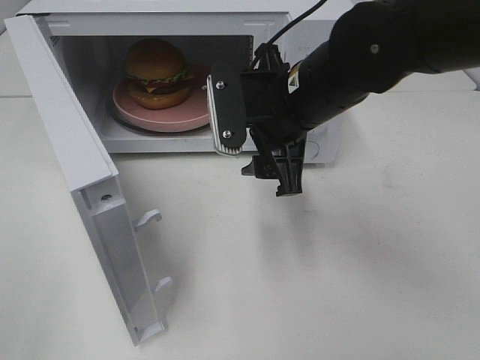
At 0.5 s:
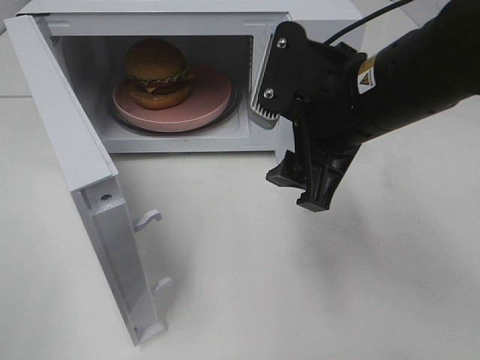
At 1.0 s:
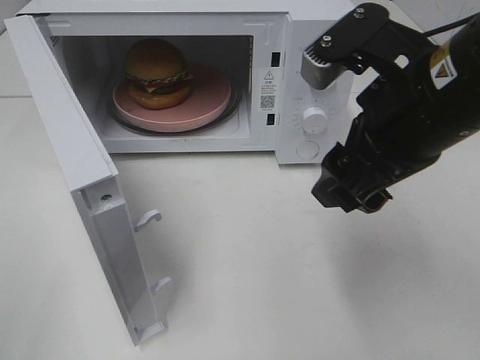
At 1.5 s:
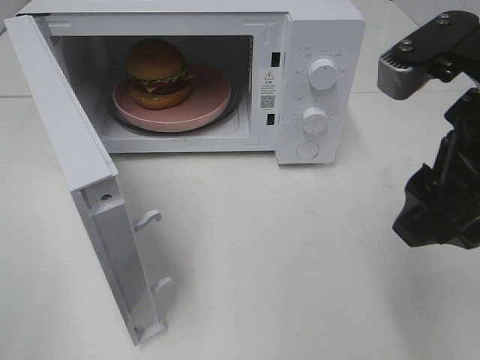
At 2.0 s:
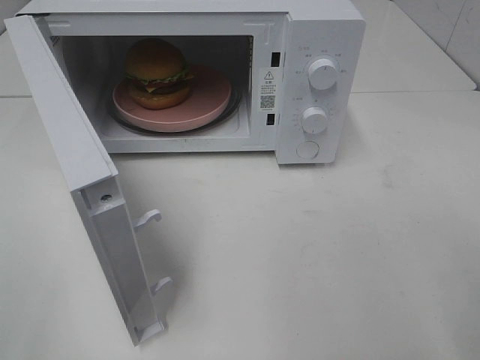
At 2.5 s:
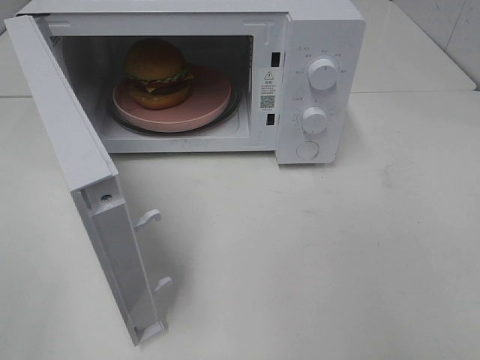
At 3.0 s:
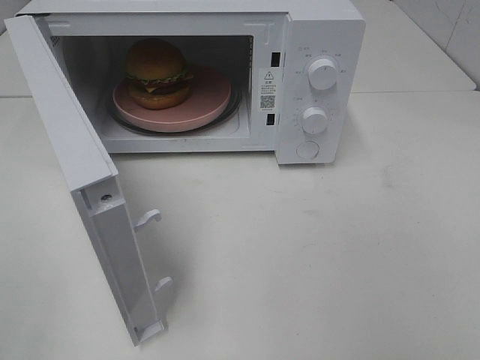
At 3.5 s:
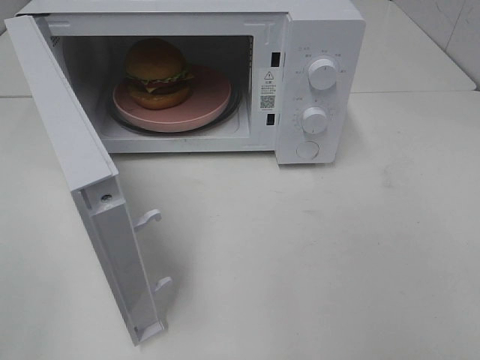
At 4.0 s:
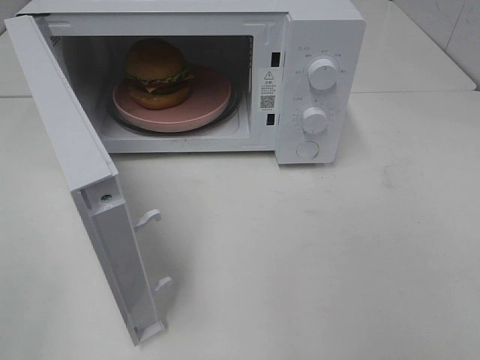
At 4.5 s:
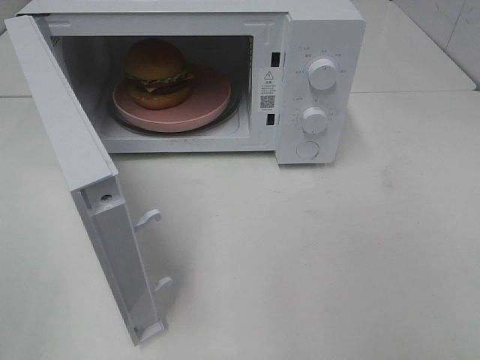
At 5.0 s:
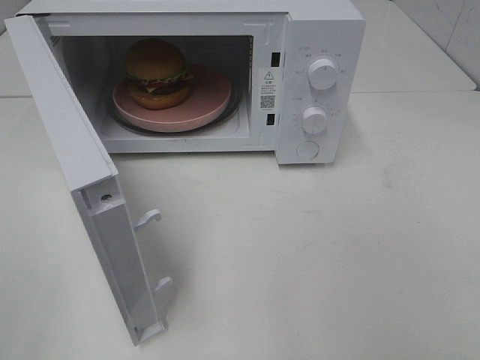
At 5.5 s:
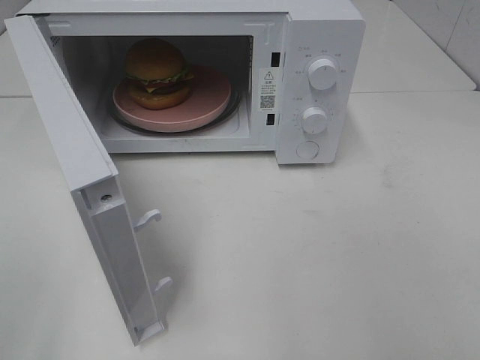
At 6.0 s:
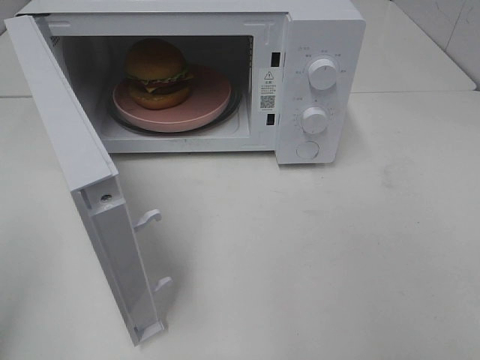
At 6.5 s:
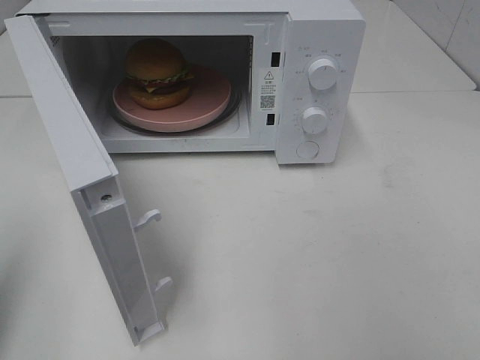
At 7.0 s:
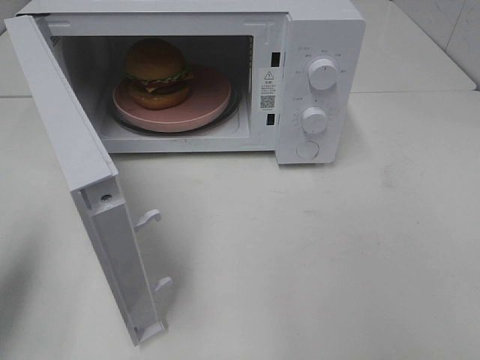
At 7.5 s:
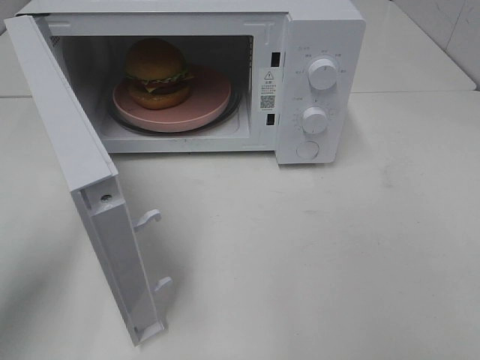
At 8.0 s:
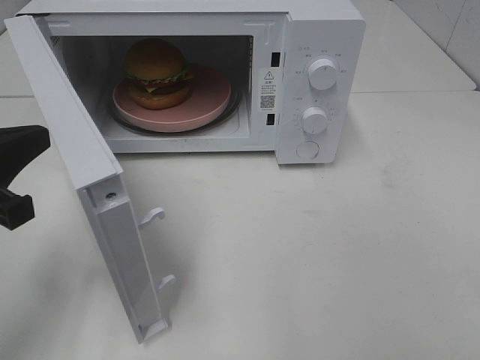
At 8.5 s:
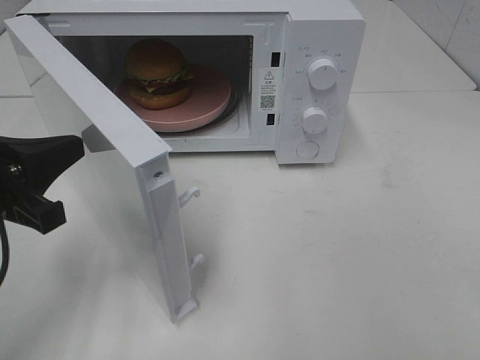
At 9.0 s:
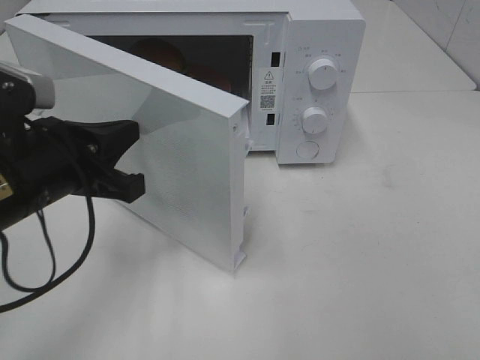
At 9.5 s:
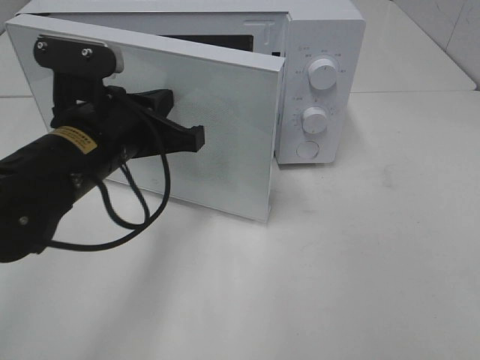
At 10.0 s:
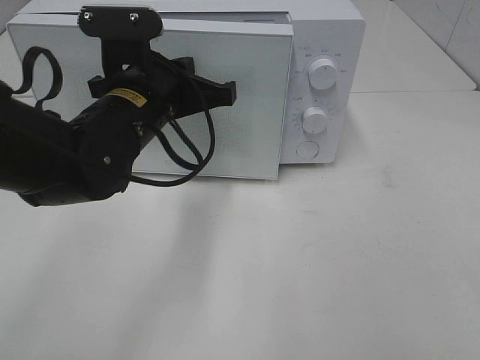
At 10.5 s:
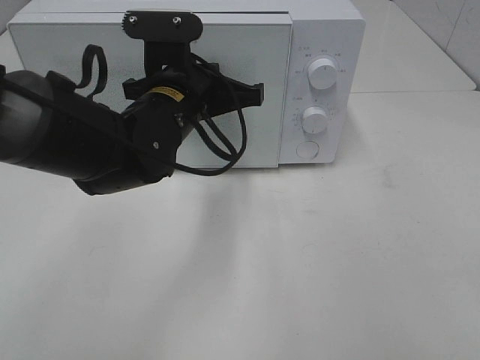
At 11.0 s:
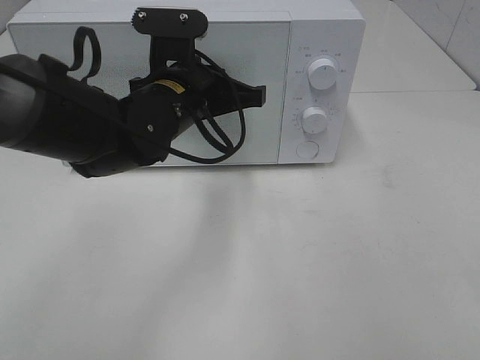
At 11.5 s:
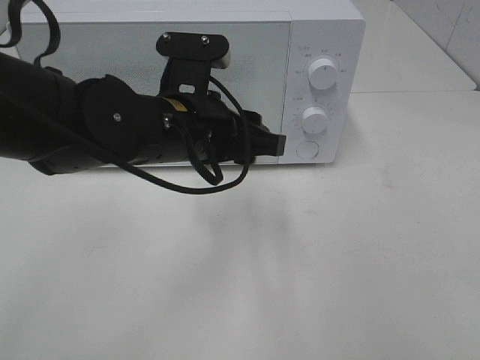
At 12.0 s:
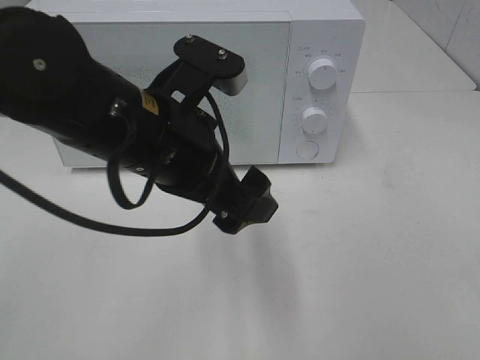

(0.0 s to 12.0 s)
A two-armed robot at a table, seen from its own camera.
Task of the whole recording: Heat the burger.
Step, 0.0 s - 11.0 s: Left hand: close the microwave door.
0.0 s - 2.0 s: The right gripper goes some 25 cm backward and to the right.
6.0 s - 8.0 s: The left gripper travels forward, downward and to the right by about 15 cm.
8.0 s - 10.0 s: The left gripper travels to the right and forward by some 20 cm.
10.0 s - 12.0 s: The left gripper travels backward by roughly 10 cm, and opens up.

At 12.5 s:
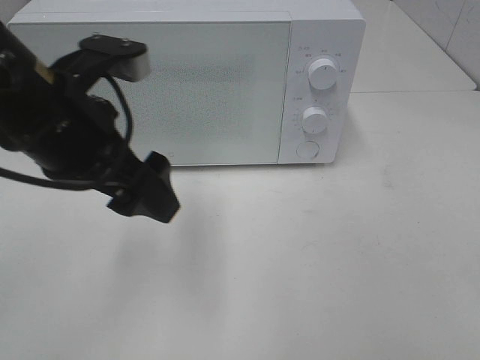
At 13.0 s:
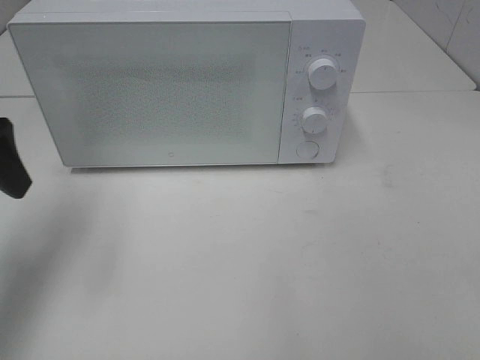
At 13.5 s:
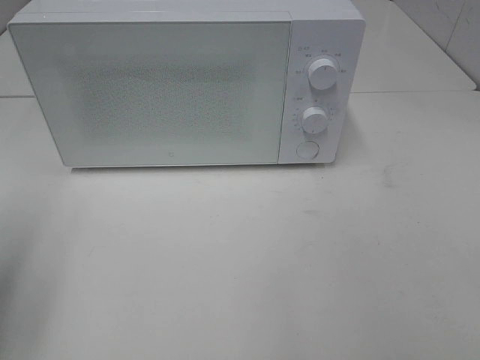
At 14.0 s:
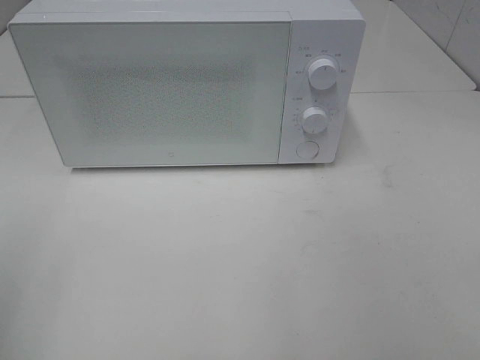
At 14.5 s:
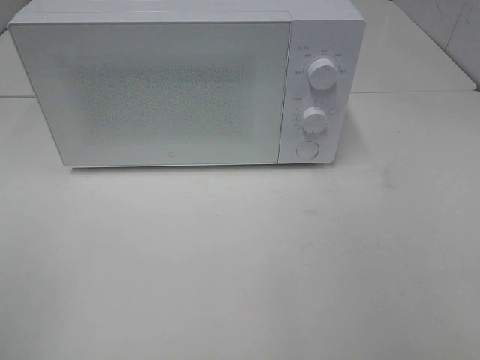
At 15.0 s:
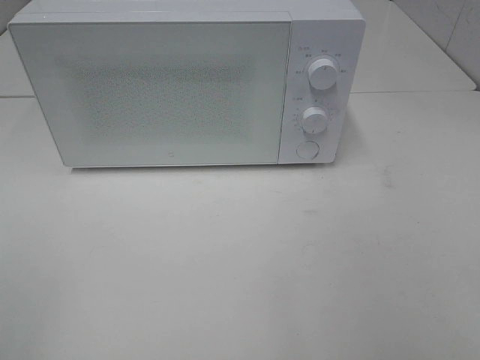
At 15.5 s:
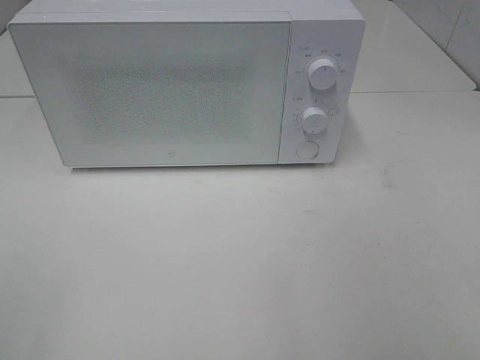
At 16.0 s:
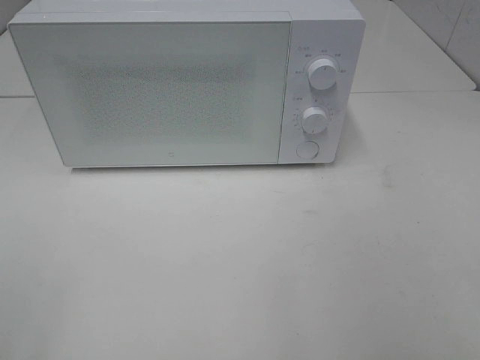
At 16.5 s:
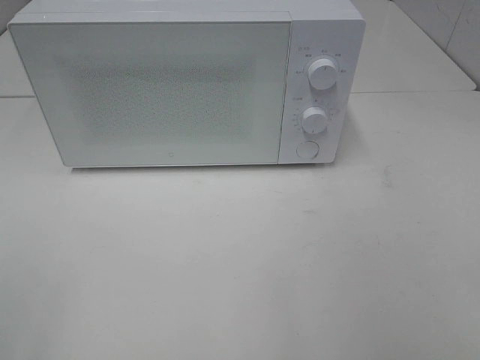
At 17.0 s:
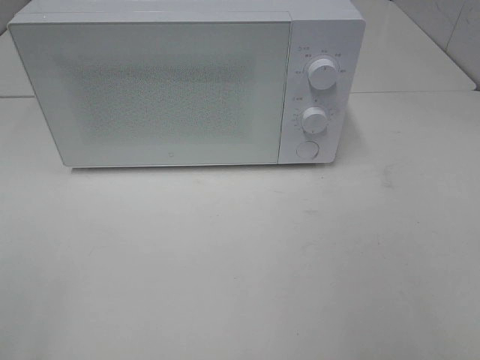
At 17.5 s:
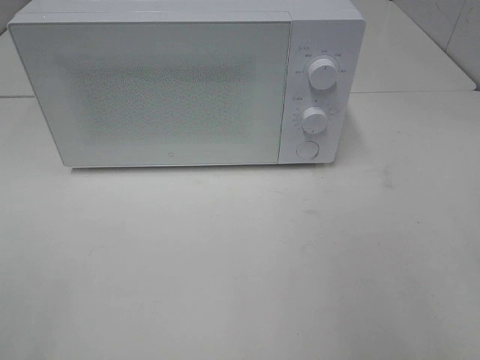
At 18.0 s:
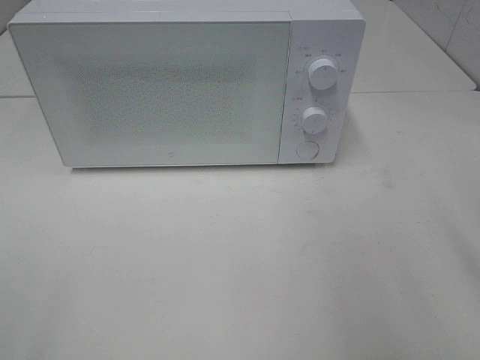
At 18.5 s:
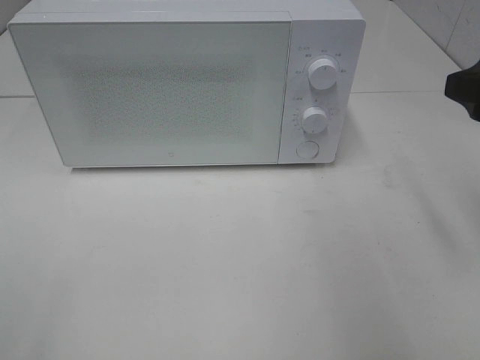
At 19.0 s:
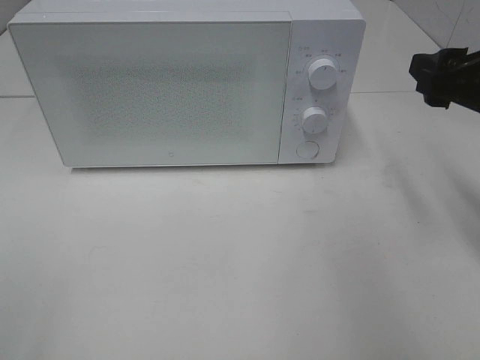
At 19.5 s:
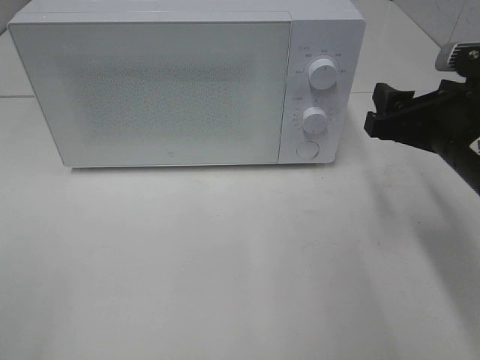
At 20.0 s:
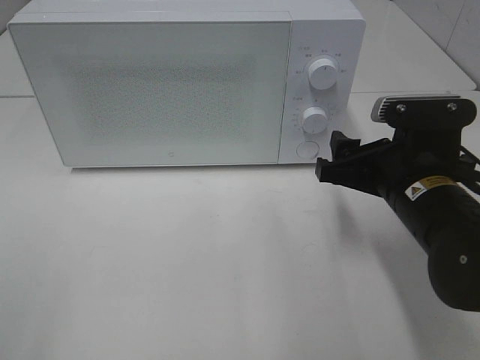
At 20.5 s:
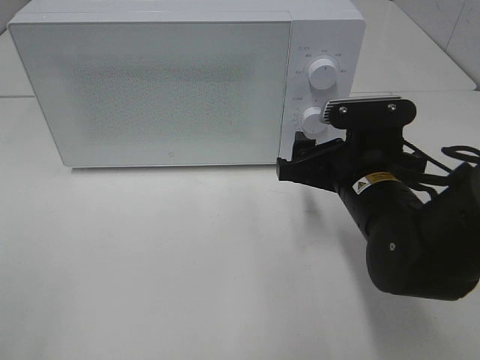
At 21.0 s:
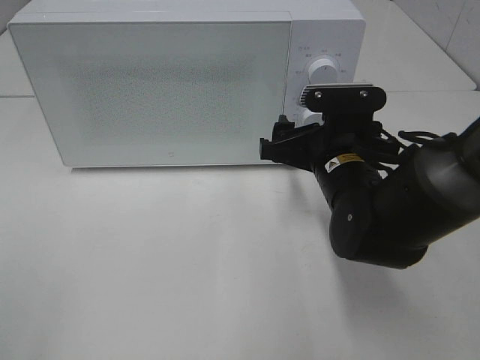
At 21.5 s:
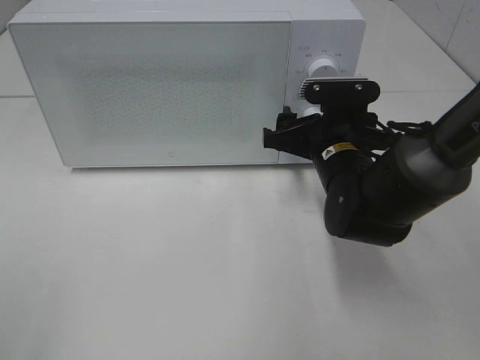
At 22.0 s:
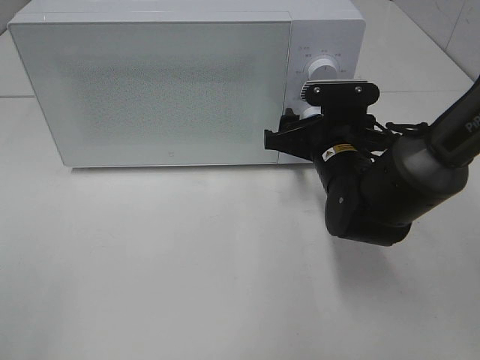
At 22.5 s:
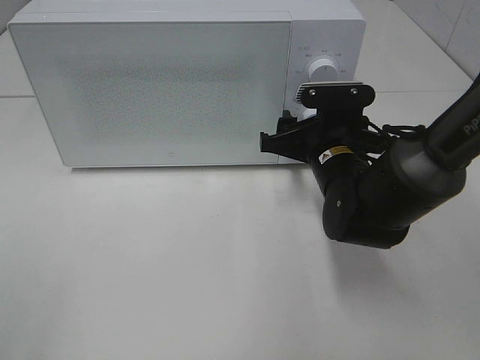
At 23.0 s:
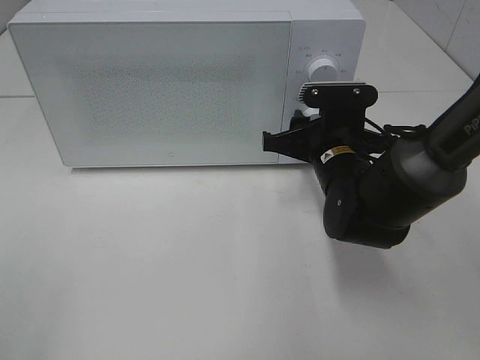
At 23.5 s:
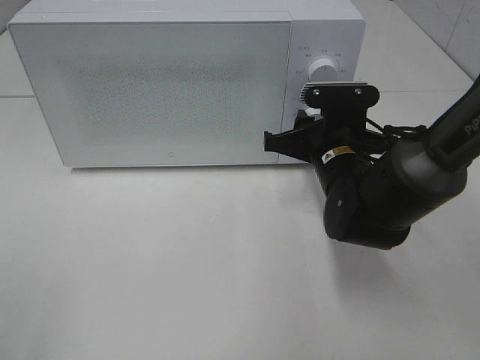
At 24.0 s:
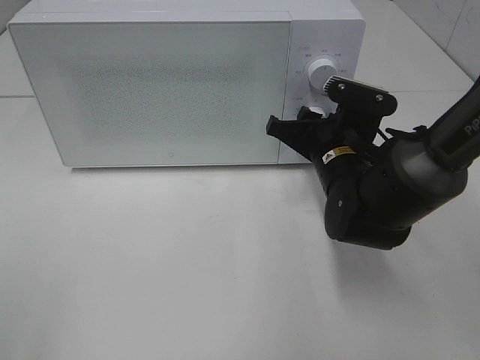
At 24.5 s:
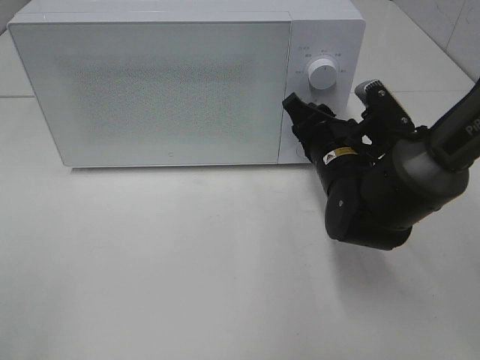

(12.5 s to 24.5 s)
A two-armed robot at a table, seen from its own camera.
Task of the whole recording: Heat the burger.
12.5 s - 14.5 s: The left gripper travels backward and to the left by some 30 cm.
16.5 s - 18.5 s: The right gripper shifts some 20 cm forward.
18.5 s - 20.5 s: The right gripper goes some 20 cm downward and to the left.
20.5 s - 22.5 s: The right gripper moves forward, approximately 5 cm.

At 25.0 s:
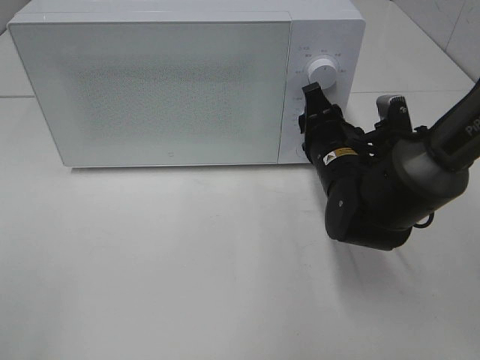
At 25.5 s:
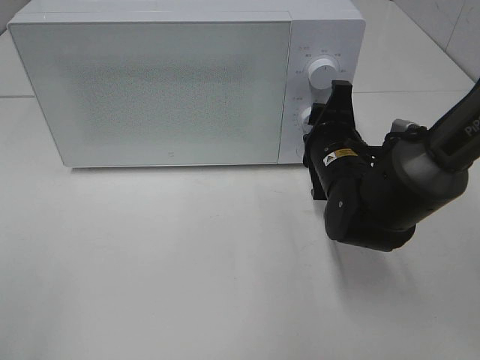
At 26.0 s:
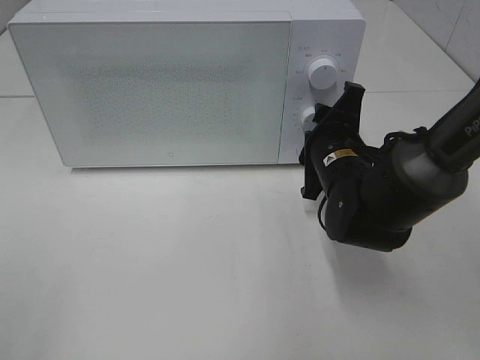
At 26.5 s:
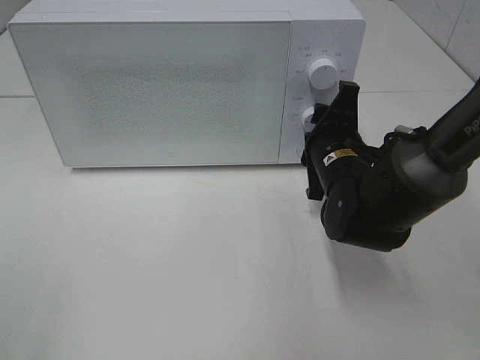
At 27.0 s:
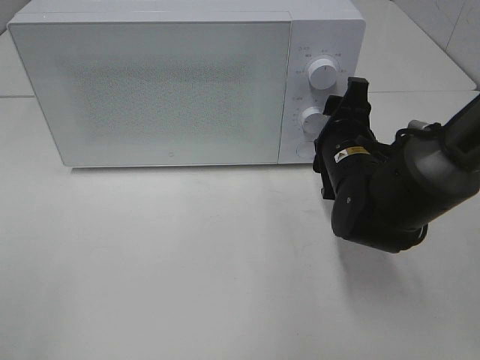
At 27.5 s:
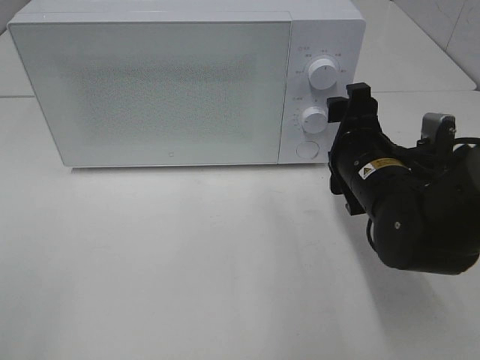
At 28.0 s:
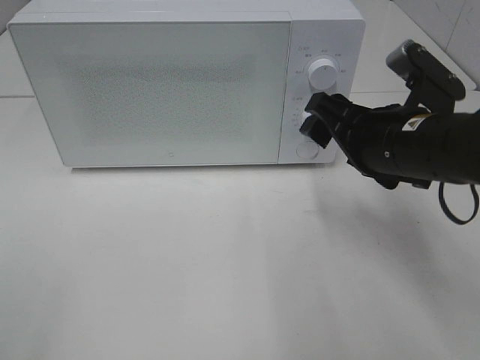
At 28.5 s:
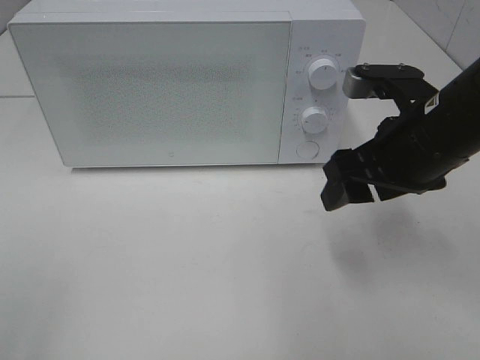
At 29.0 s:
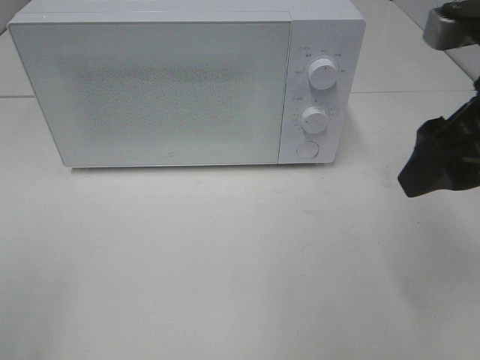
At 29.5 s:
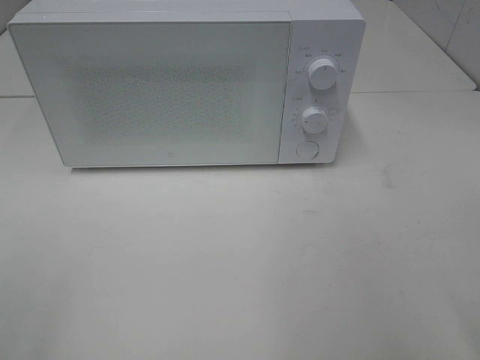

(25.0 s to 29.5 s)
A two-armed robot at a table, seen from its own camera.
Task of the whole recording: Heat the burger.
Step, 25.0 s - 27.0 s: Right hand: twist timer button.
27.0 s - 29.5 s: The right gripper travels backward, upward and to the right by approximately 30 cm.
